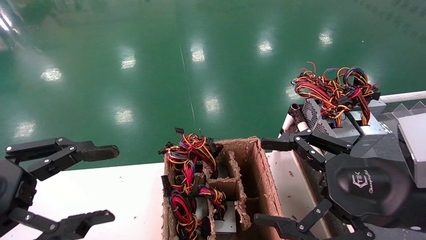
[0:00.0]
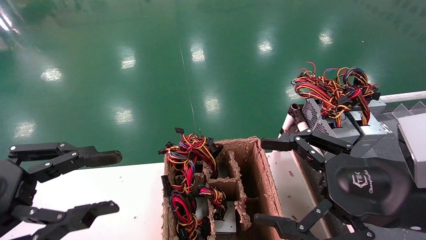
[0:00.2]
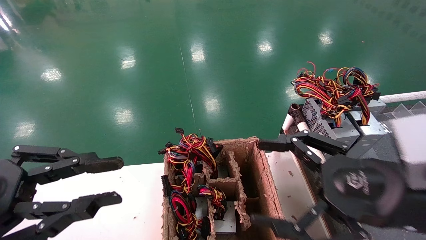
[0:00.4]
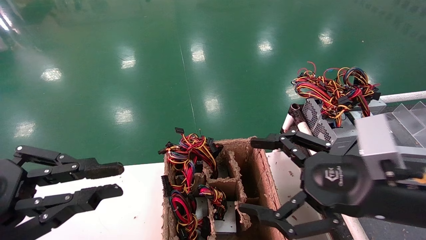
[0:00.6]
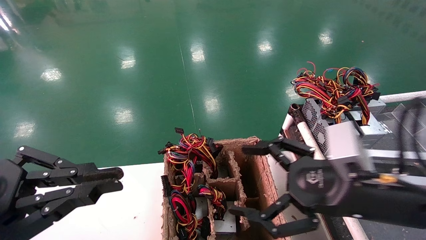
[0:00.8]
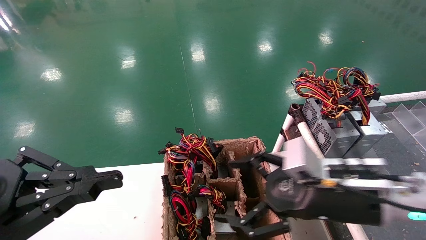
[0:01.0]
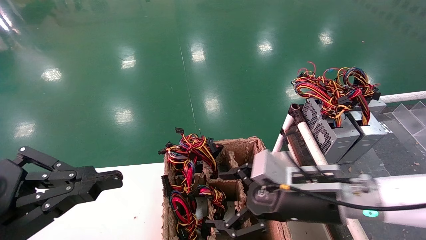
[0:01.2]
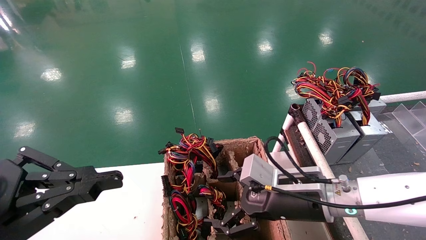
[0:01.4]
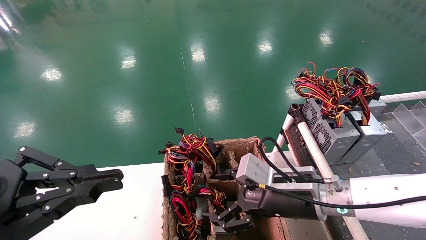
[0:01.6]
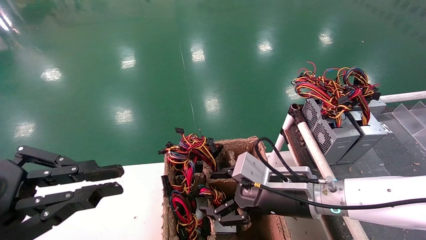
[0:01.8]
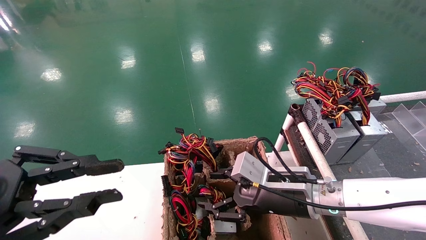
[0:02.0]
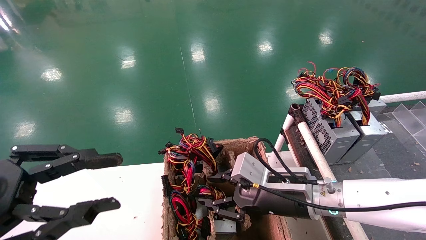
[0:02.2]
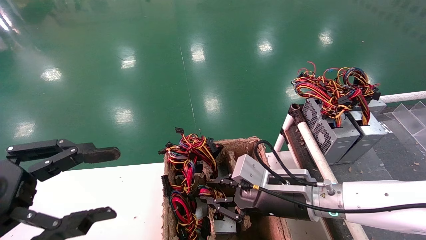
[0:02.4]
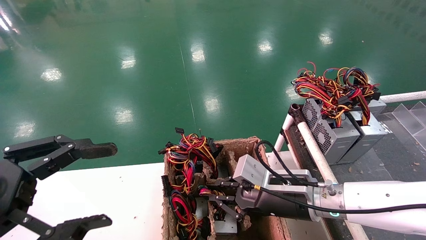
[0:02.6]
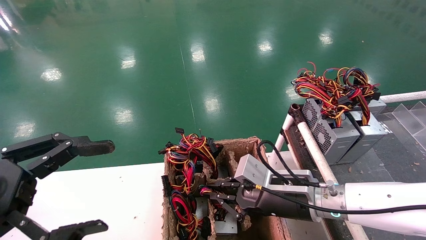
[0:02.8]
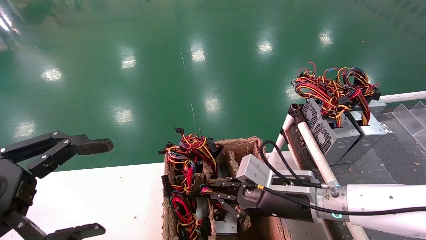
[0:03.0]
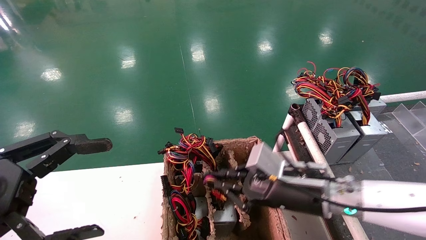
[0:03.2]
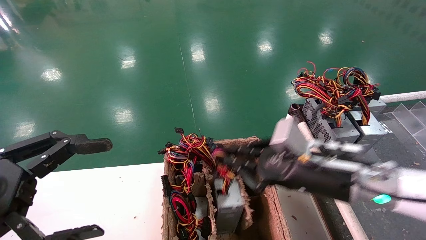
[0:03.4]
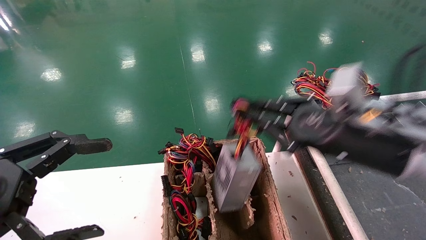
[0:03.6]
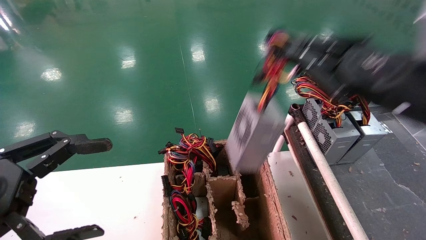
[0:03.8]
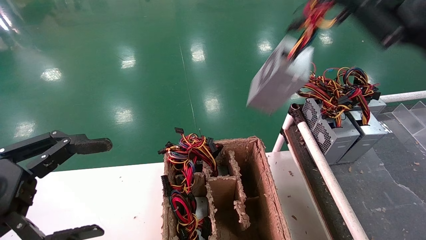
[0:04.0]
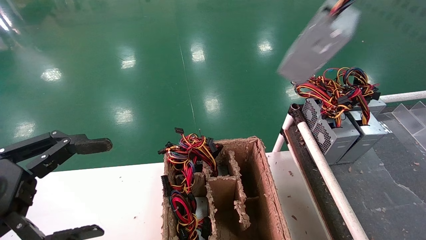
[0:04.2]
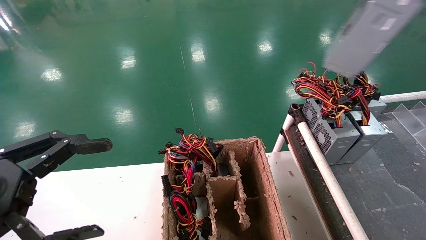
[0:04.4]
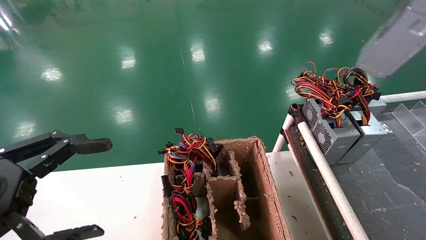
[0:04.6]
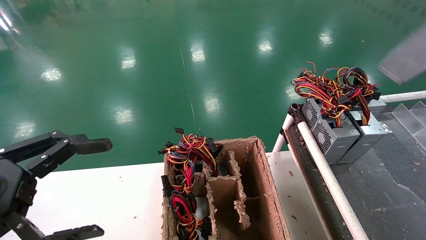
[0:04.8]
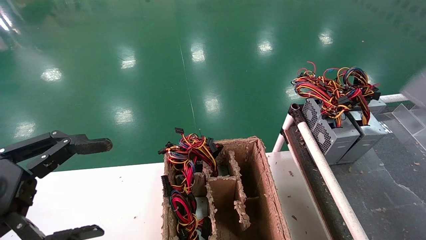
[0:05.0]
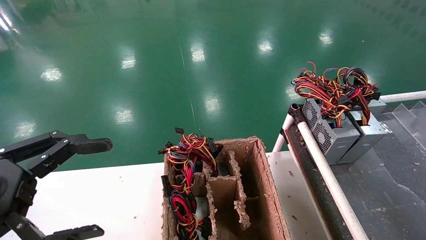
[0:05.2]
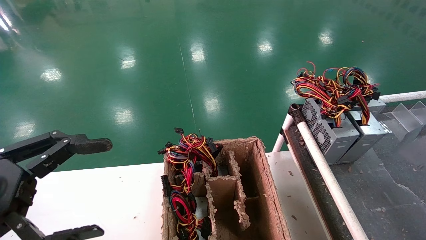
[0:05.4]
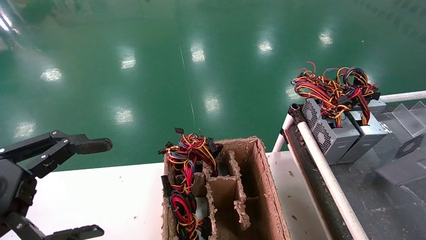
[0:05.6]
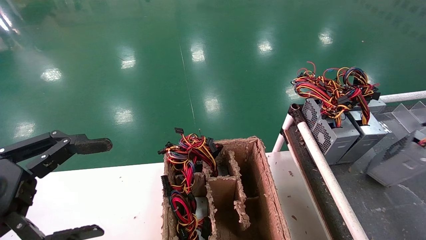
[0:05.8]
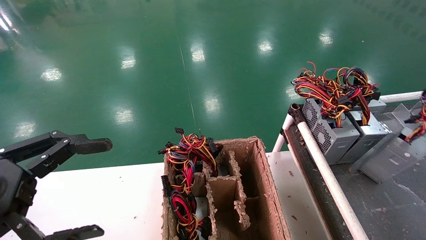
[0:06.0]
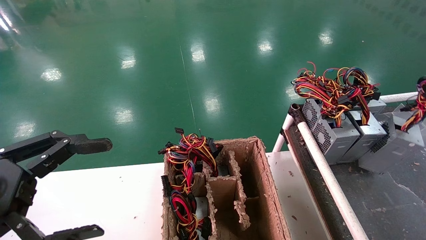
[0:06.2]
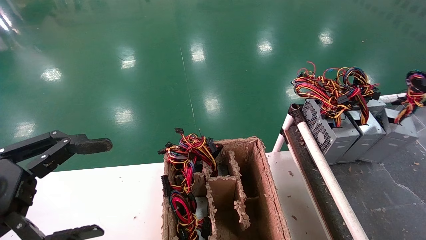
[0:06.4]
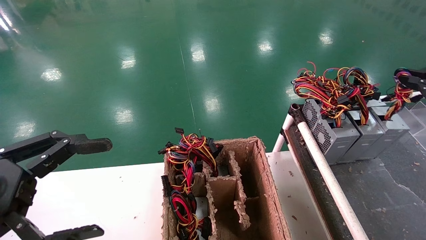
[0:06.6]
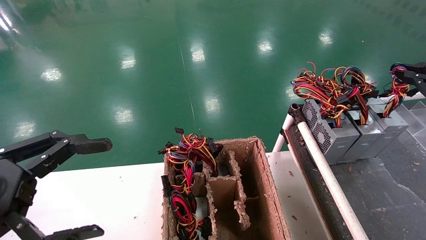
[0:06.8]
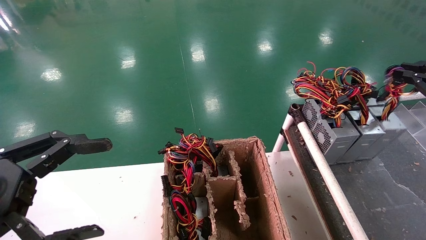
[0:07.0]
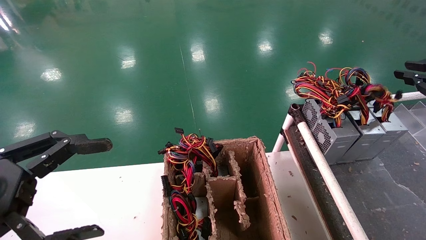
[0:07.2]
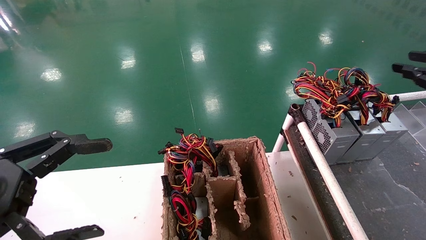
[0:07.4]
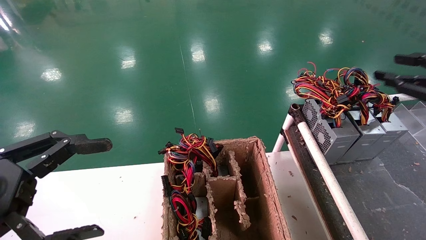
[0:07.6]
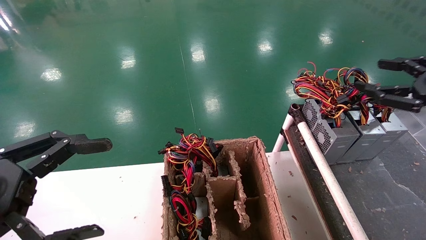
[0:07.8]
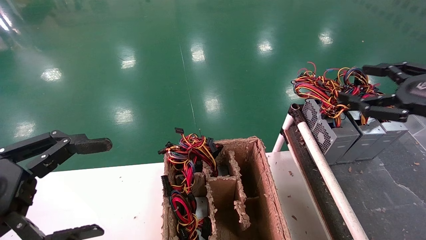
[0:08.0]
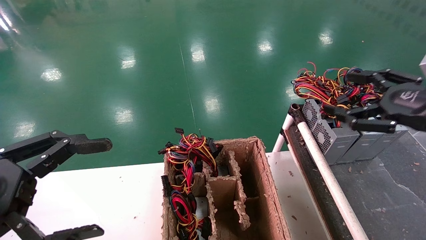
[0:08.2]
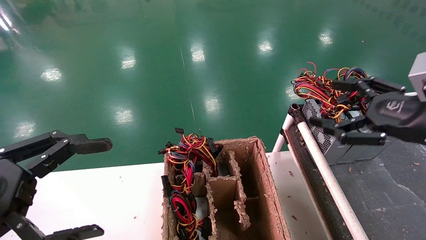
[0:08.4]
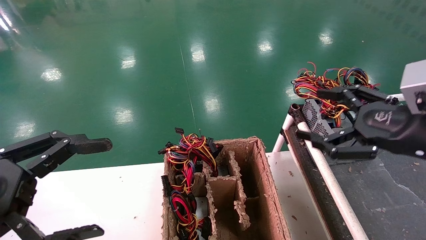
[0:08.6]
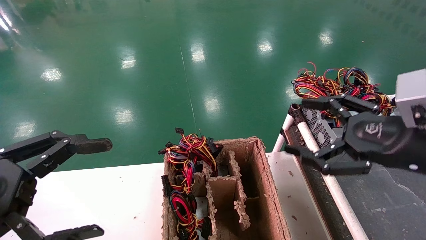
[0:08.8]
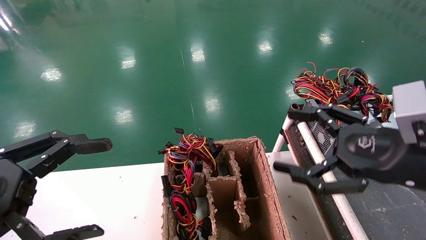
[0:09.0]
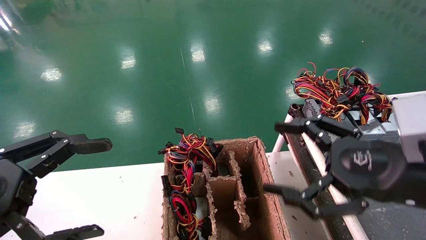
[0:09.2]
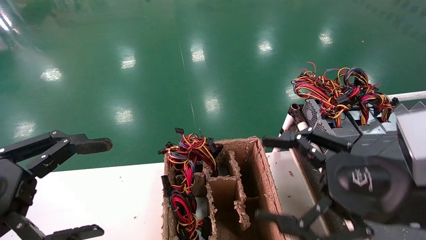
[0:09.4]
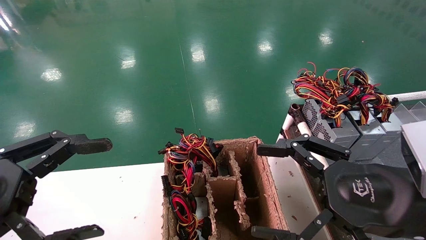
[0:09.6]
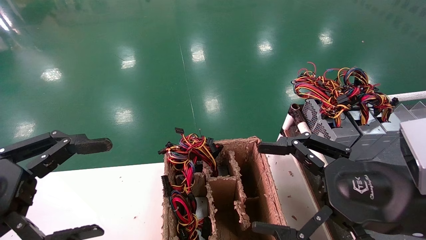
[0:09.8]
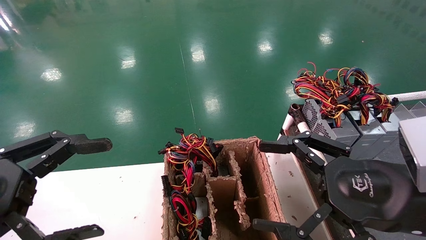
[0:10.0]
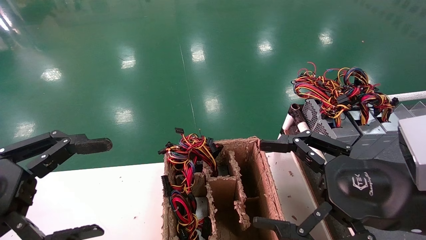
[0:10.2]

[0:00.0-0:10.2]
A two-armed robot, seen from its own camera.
Step, 0:00.8 to 0:03.8: Grab and lift the power supply from the large box.
Step, 0:04.0 to 0:07.6: Place the power supply on the operating table.
0:00.0 to 0:01.4: The left gripper closes up. The right gripper travels forward, to the left and downward by approximately 15 cm.
0:01.4 to 0:03.0: The right gripper closes up. The left gripper opens its fingers.
0:03.0 to 0:04.4: The right gripper travels upward and to the right by some 40 cm.
0:04.4 to 0:05.8: The right gripper goes about 20 cm downward and to the right.
0:05.8 to 0:07.2: The right gripper shifts approximately 10 cm forward and to the left.
0:07.2 to 0:08.8: The right gripper heads to the left and downward, covering some 15 cm, and opens.
0:08.8 to 0:10.2: The right gripper moves about 5 cm.
